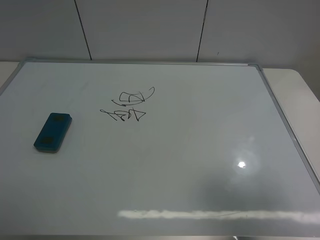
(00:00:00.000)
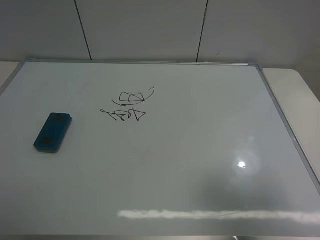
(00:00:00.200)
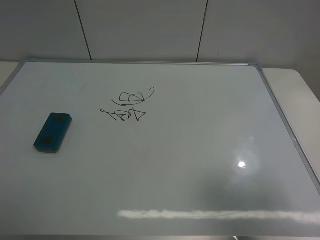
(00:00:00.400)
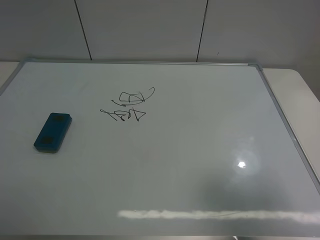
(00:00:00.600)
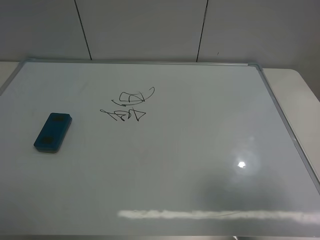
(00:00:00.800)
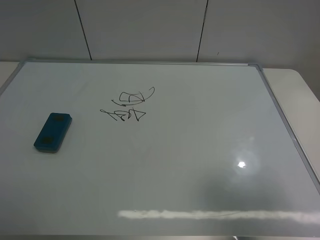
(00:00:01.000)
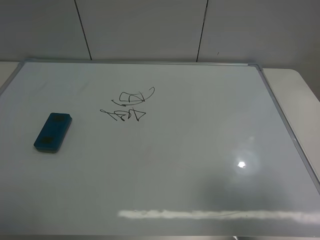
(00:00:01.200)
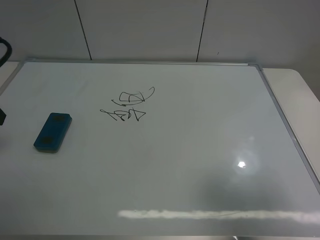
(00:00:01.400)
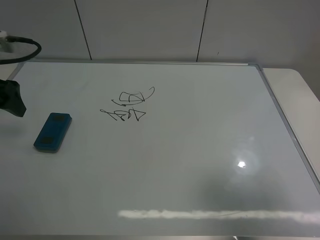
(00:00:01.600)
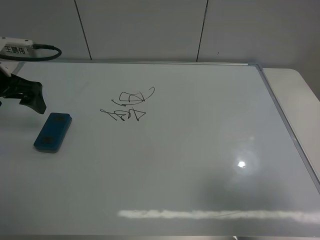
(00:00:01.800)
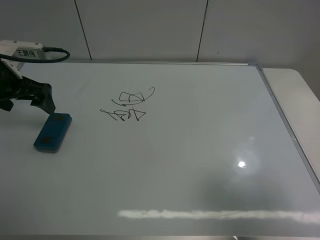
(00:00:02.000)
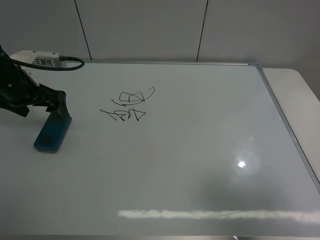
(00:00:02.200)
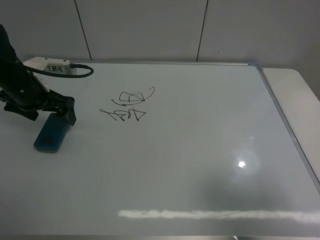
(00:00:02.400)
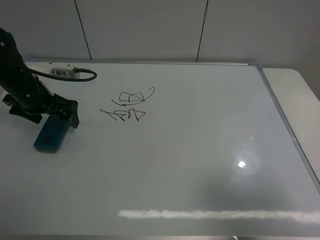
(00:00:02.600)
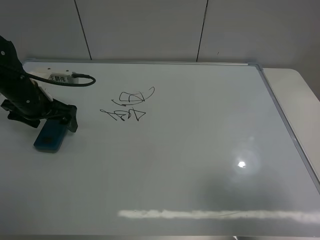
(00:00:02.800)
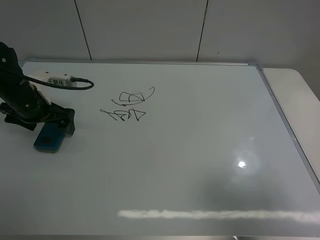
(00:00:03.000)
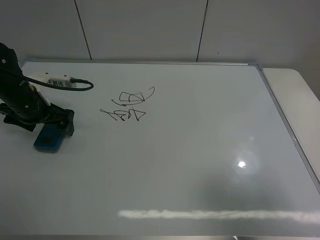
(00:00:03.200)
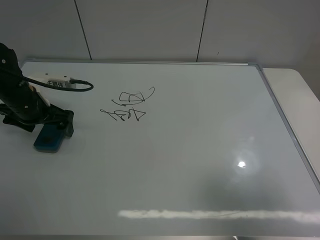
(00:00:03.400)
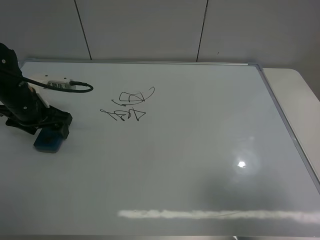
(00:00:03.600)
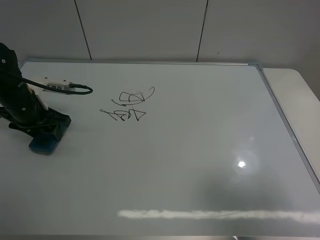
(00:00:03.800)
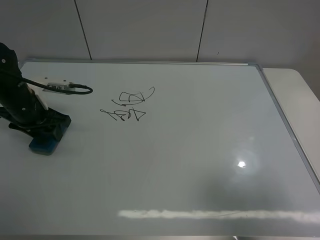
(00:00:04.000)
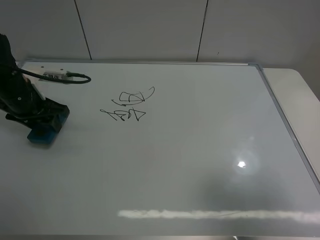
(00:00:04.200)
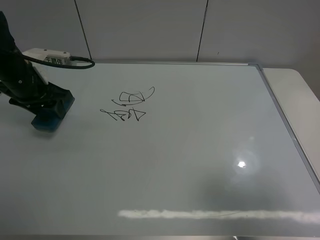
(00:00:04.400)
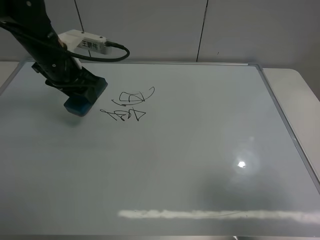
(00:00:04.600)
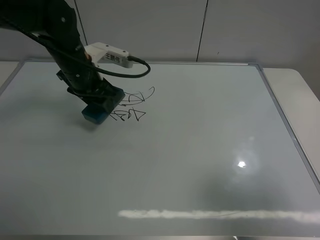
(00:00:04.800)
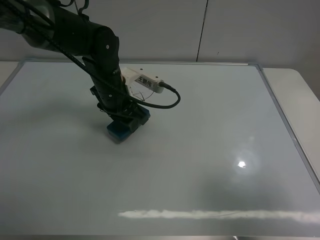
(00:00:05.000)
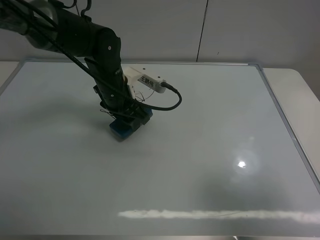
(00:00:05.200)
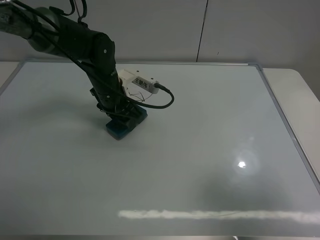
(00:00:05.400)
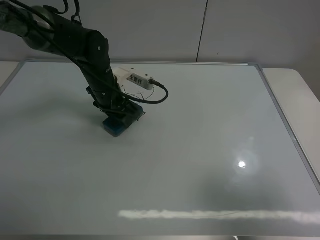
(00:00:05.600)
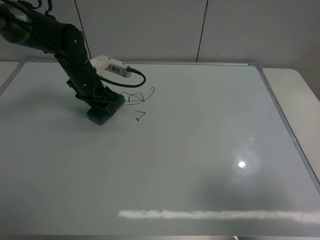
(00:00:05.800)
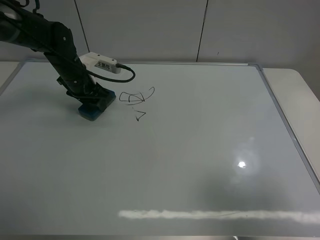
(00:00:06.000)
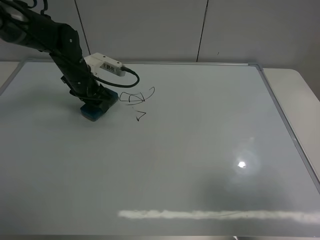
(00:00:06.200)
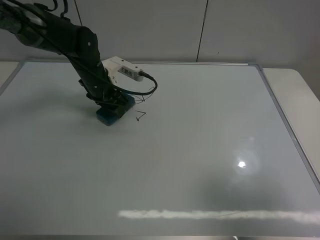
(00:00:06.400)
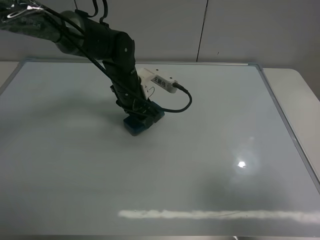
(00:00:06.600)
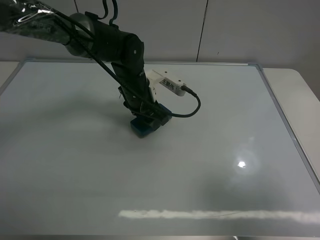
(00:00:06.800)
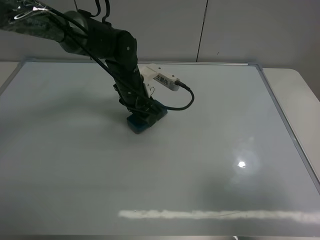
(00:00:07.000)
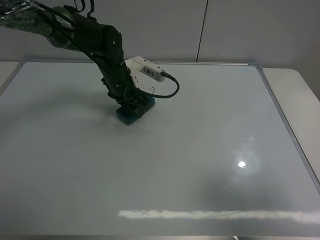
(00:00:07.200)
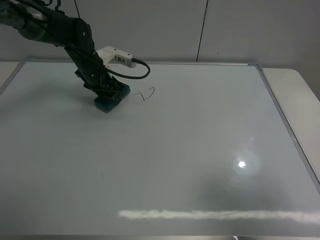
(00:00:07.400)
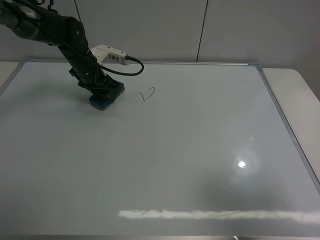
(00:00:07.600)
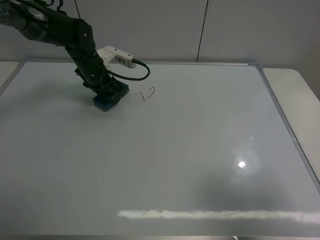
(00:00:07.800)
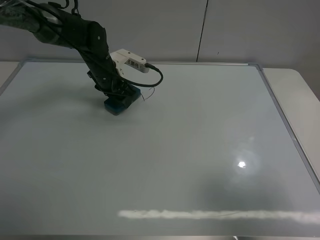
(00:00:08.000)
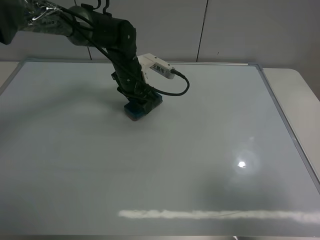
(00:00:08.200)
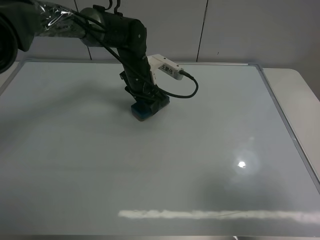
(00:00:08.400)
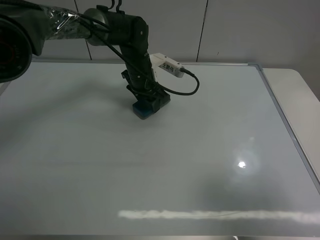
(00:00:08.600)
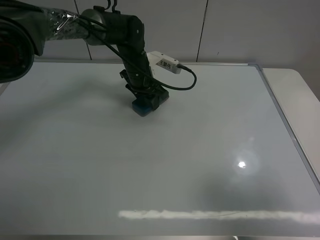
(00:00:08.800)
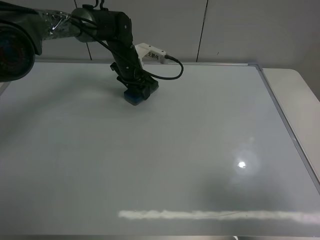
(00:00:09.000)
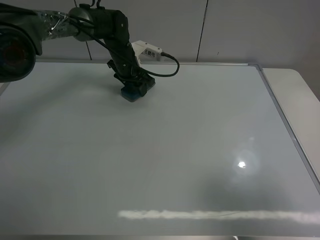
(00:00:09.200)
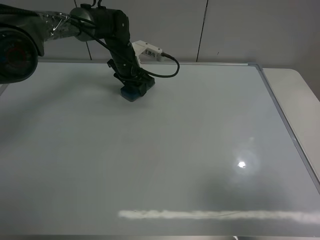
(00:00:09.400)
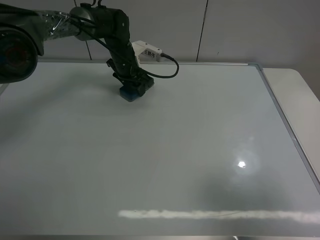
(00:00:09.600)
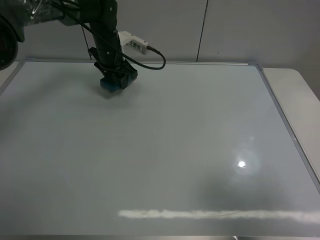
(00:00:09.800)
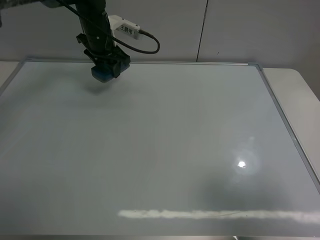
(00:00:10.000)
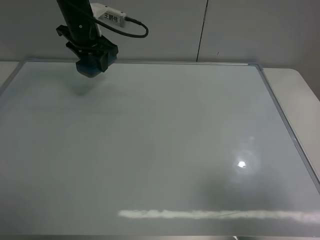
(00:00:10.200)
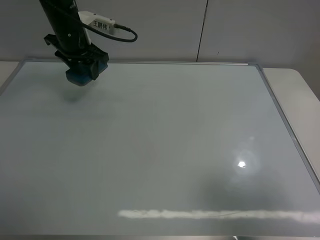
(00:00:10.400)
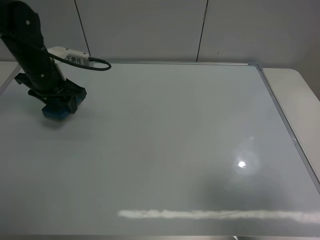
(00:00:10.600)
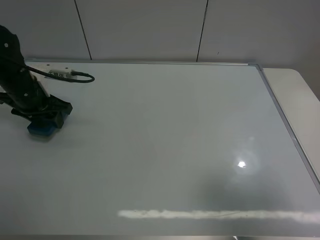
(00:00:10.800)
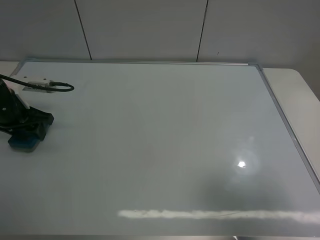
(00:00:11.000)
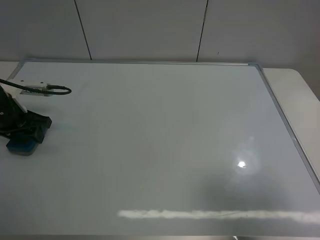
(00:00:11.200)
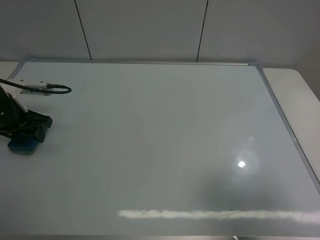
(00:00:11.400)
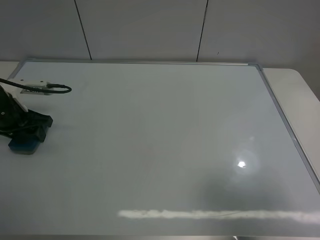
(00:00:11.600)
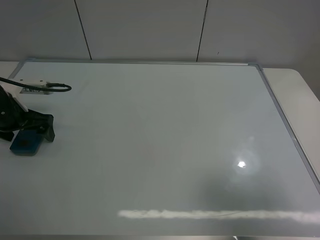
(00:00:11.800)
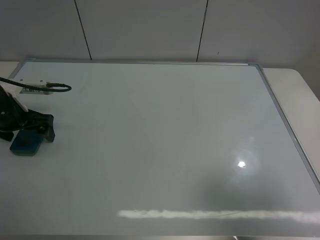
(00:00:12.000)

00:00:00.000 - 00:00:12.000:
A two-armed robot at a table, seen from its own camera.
Task of the whole recording: use the left claw to pick up the whiteboard eraser, wipe the notes on the whiteboard clean, and then put them back in place.
Step, 00:00:00.000 - 00:00:03.600: Grasp the eraser with the left gripper.
Step, 00:00:03.800 - 00:00:09.600: Grasp the eraser and wipe the blackboard with the left gripper.
Step, 00:00:09.800 - 00:00:11.800: Place the eraser with the left gripper.
00:00:00.000 - 00:00:01.600: The left gripper moves forward, some 25 cm.
00:00:01.600 - 00:00:03.000: The left gripper goes about 10 cm downward and forward.
00:00:03.000 - 00:00:04.400: The left gripper moves upward, approximately 5 cm, and closes.
00:00:04.400 - 00:00:06.000: The left gripper goes some 10 cm forward and downward, and goes to the right and returns, some 15 cm each way.
00:00:06.000 - 00:00:07.600: The left gripper goes to the right and returns, roughly 15 cm each way.
00:00:07.600 - 00:00:09.000: The left gripper travels to the right by some 10 cm.
00:00:09.000 - 00:00:10.400: The left gripper heads to the left, upward and backward, covering some 15 cm.
00:00:10.400 - 00:00:12.000: The left gripper shifts about 20 cm backward, to the left and downward, and opens.

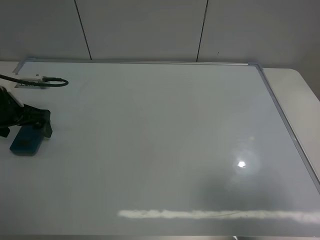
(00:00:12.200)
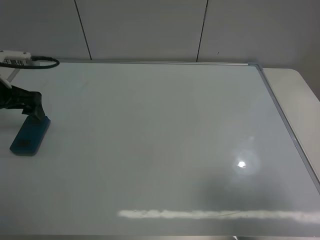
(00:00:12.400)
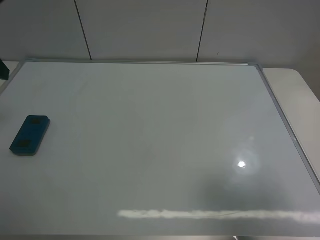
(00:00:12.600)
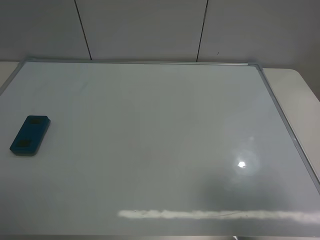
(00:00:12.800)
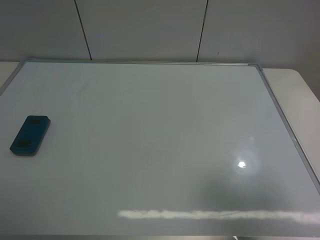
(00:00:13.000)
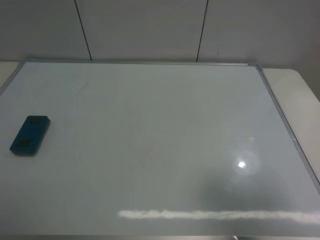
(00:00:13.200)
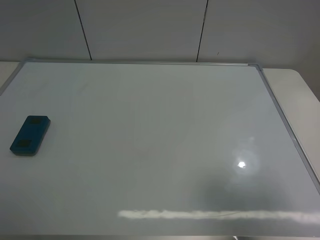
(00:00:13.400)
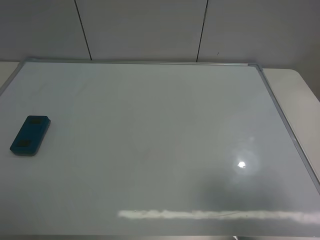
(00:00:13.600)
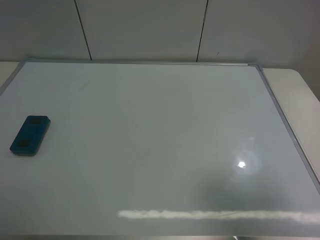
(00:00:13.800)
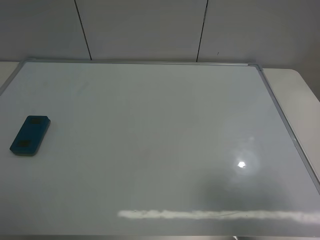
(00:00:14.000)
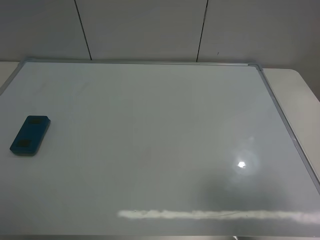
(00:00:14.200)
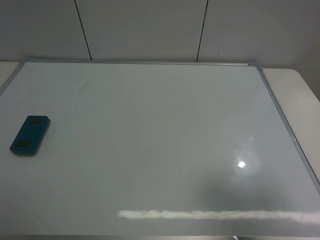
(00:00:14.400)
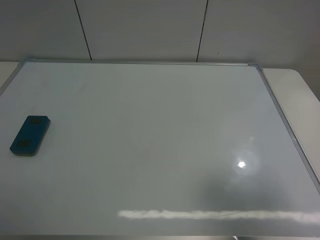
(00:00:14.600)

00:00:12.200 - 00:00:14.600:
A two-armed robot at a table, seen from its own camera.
Task of the whole recording: use the left claw to pick up the whiteboard eraser, wipe the notes on the whiteboard clean, and then put them back in place.
00:00:12.200 - 00:00:13.400: The left gripper goes some 40 cm backward and upward.
